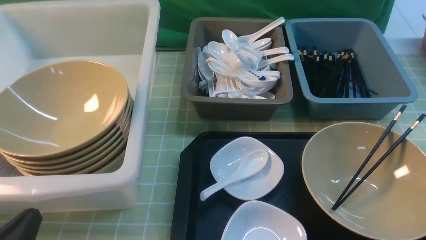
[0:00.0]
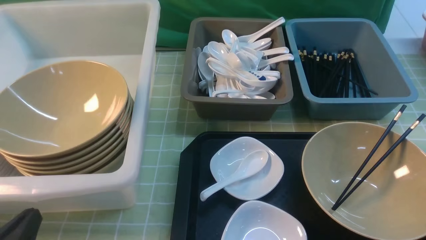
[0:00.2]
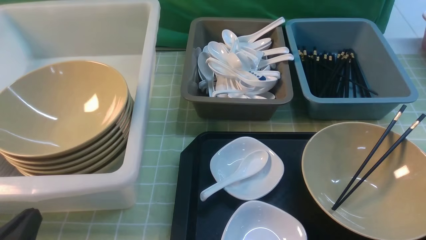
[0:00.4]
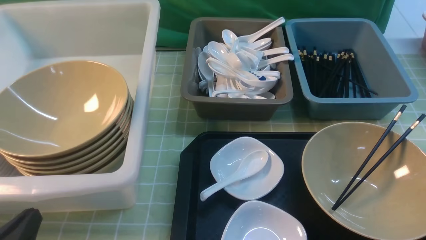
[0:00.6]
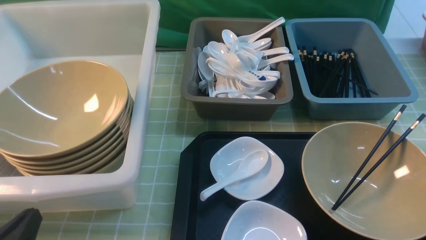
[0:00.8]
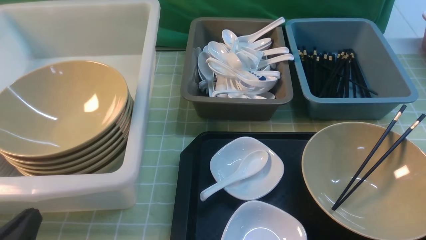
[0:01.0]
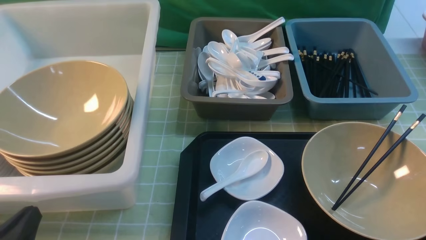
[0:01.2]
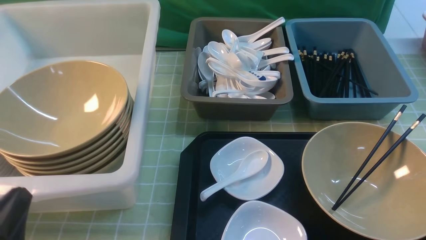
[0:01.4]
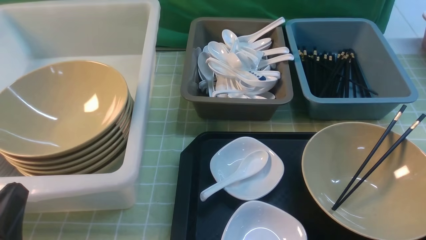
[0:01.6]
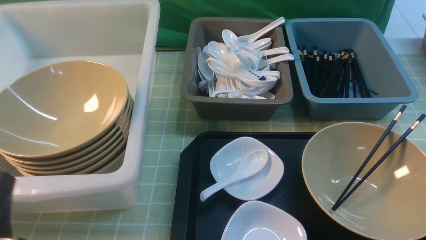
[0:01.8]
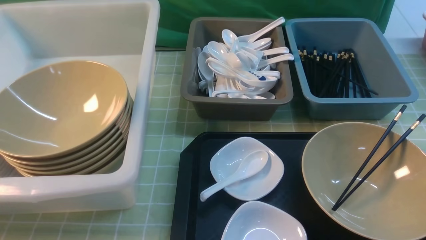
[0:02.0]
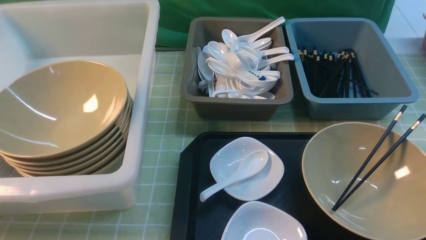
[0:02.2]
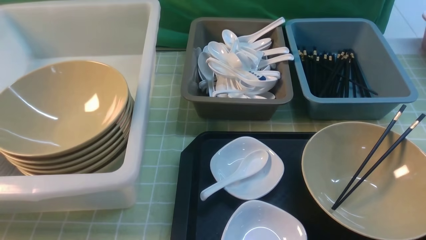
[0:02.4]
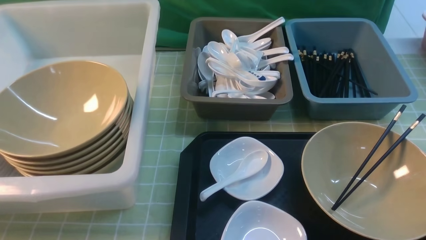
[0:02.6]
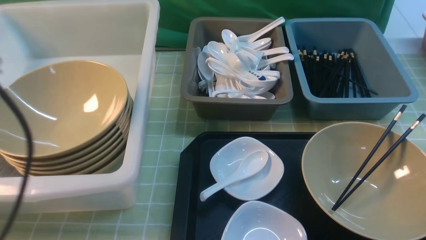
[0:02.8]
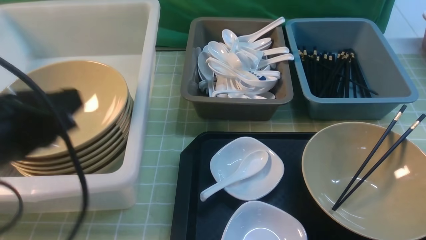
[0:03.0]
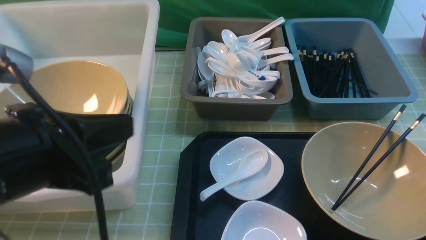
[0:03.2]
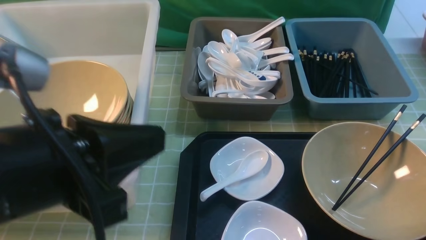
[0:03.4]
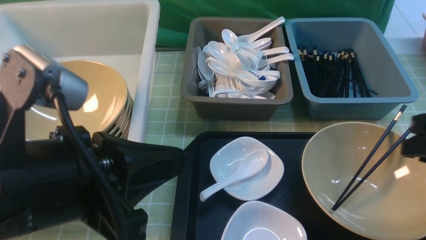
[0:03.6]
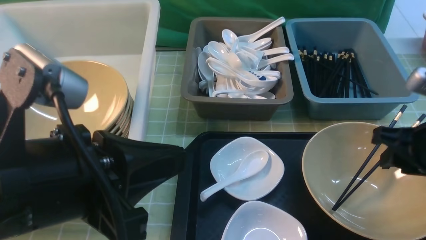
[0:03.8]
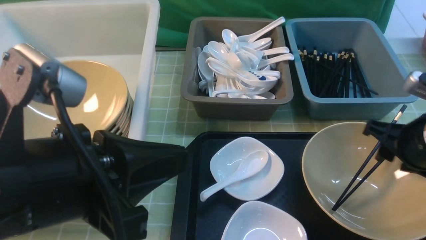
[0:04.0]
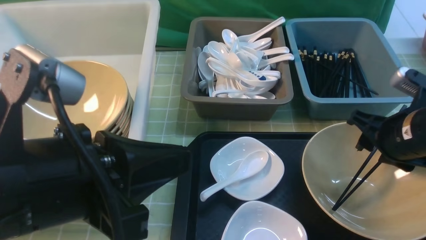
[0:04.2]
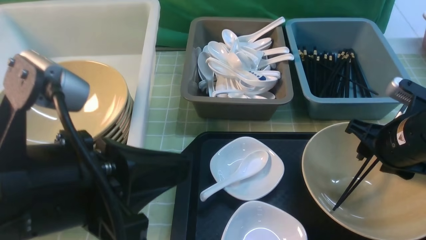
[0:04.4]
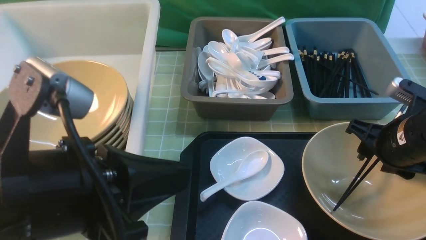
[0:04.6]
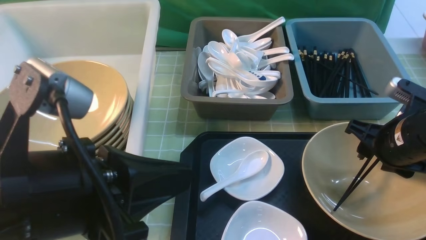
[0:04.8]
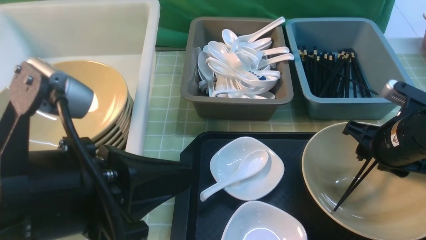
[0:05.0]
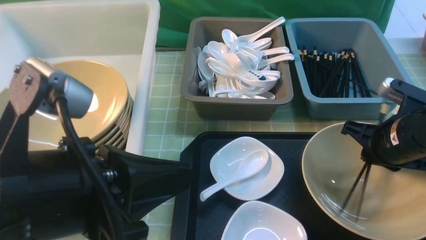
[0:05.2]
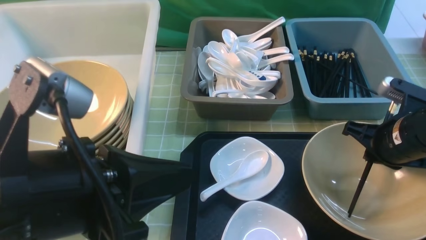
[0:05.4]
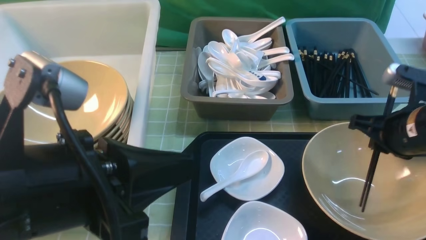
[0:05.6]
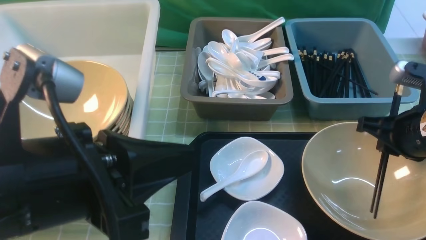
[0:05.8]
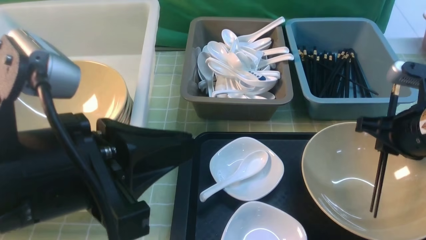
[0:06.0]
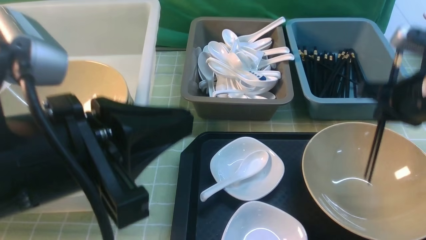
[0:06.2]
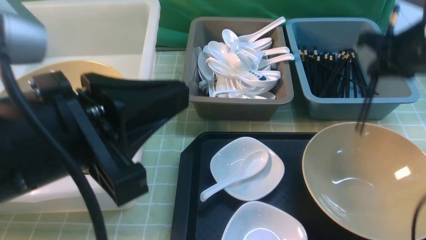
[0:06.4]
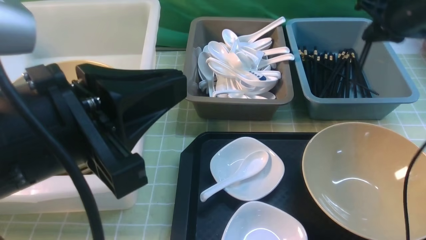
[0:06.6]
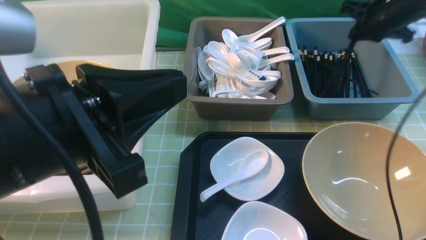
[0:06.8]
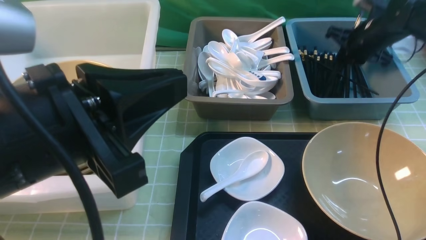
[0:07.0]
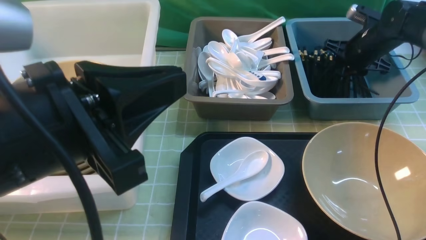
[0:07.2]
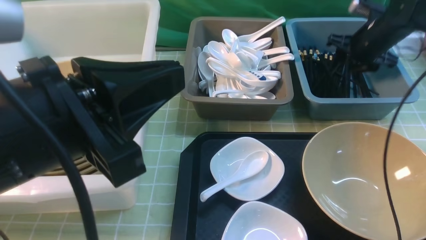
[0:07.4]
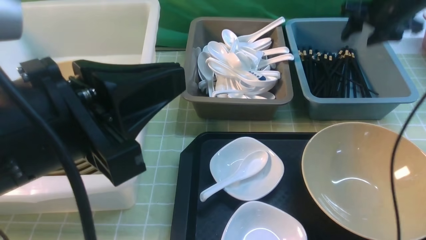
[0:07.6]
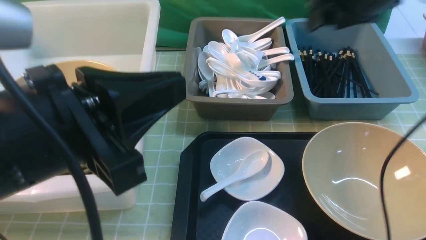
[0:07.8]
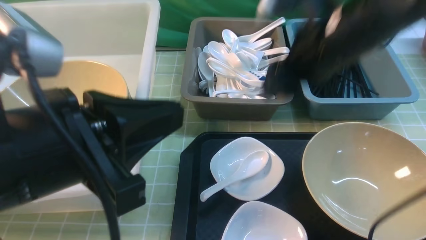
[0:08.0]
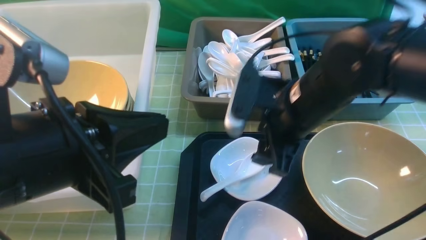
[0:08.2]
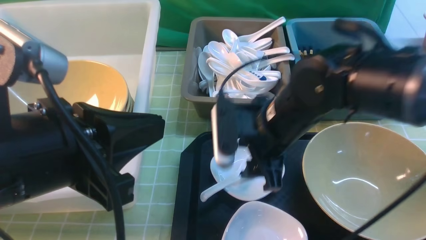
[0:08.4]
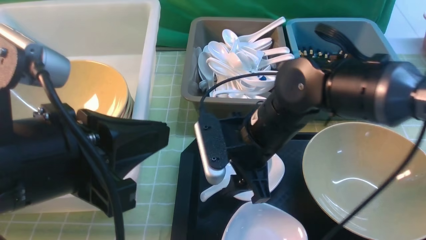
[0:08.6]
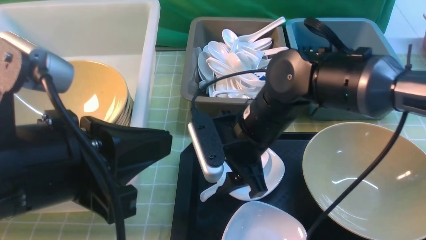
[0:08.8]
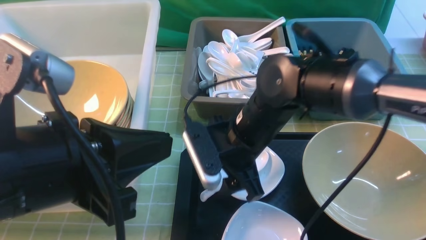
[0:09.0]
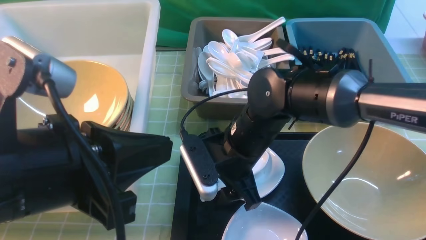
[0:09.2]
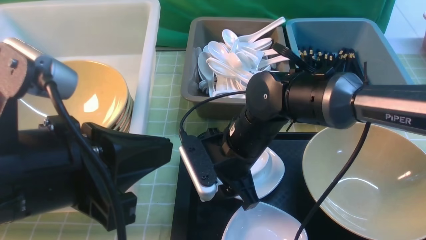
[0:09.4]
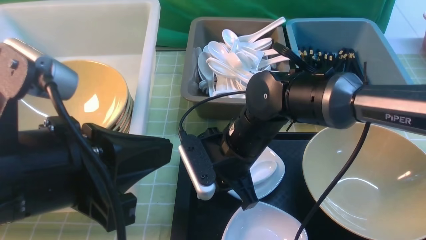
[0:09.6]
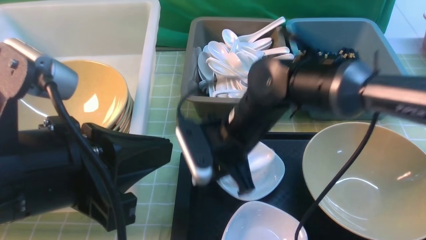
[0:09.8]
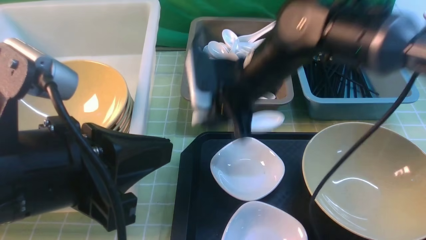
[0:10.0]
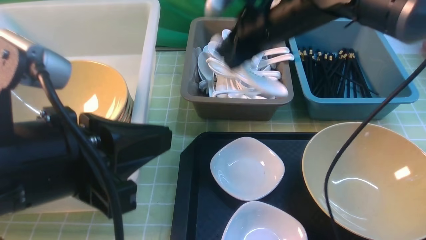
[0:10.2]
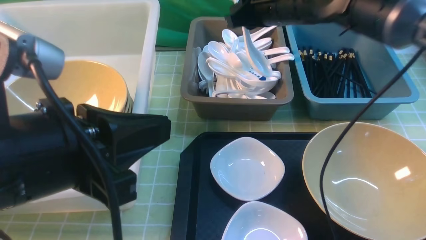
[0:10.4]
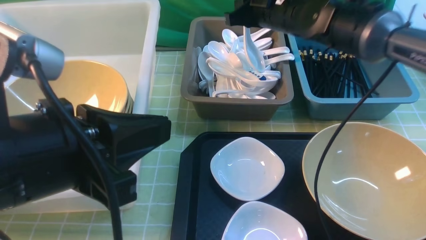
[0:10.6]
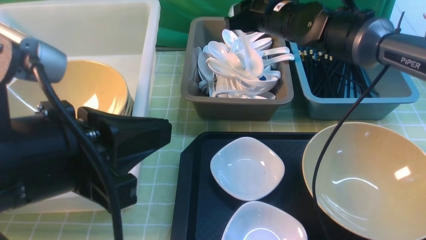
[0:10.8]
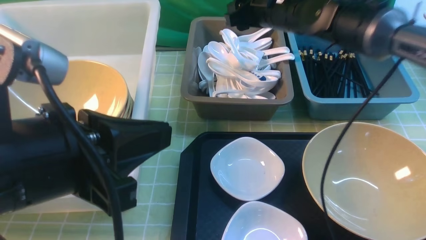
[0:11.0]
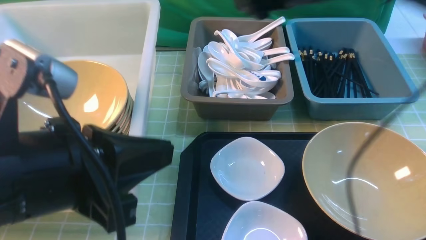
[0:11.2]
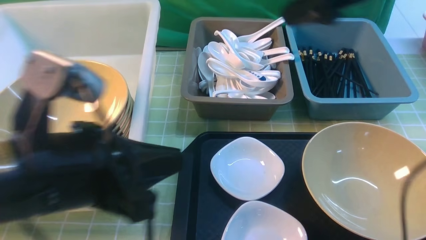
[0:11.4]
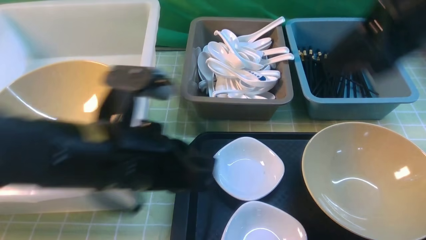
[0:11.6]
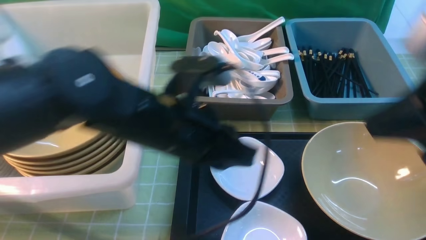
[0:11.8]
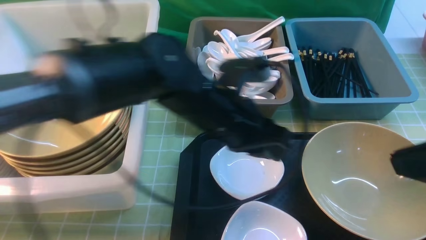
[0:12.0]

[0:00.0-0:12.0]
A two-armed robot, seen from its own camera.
Task of the whole recording: on green table put chopsticks spoon bowls plates into blue grey white boxes.
Step, 0:00.0 to 0:05.6: use the right arm to grab the chopsticks.
Step, 0:05.8 to 0:07.8: use the right arm to put the chopsticks into the small storage box on the right.
Step, 0:08.0 to 0:09.8: use the right arm to grab the soup spoon in the middle.
Step, 0:10.0 to 0:11.0: use the right arm to put the soup spoon into the small storage box in the middle.
0:00.0 to 0:01.6: The grippers move only a little.
0:01.6 to 0:03.0: The left gripper shifts approximately 15 cm upward and forward.
0:03.0 to 0:04.4: The left gripper is displaced to the right by about 5 cm, while the right gripper shifts some 20 cm forward, downward and to the left.
0:04.4 to 0:06.0: The right gripper closes its fingers.
0:06.0 to 0:07.6: The right gripper heads forward, covering about 20 cm, and opens.
0:07.6 to 0:09.0: The right gripper is displaced to the left, backward and downward by approximately 30 cm.
0:09.0 to 0:10.4: The right gripper is displaced forward, upward and to the right by roughly 20 cm, and closes its fingers.
0:10.4 to 0:12.0: The right gripper shifts some 35 cm backward and to the right, and opens and closes again. Meanwhile the left gripper is displaced to the right, forward and downward by approximately 25 cm, and opens its fingers.

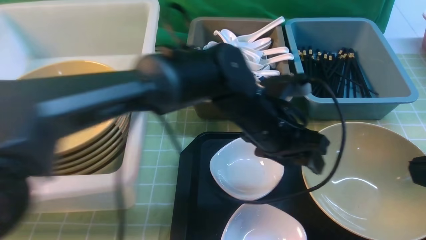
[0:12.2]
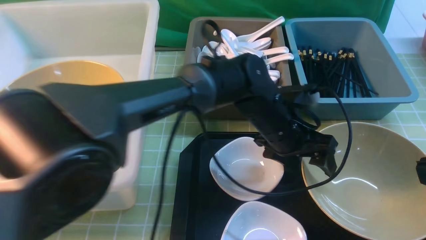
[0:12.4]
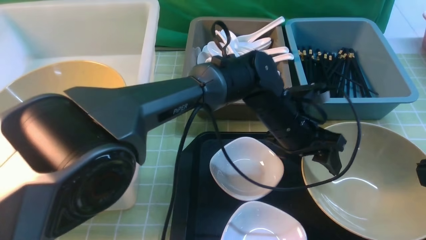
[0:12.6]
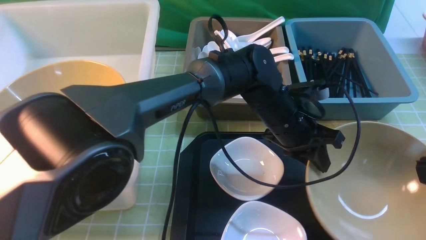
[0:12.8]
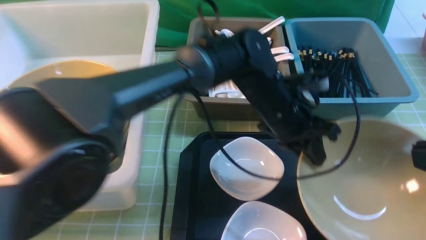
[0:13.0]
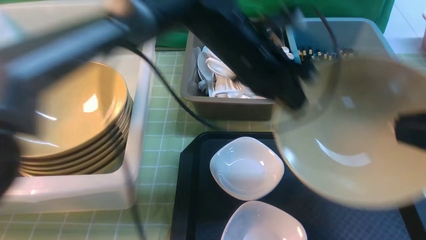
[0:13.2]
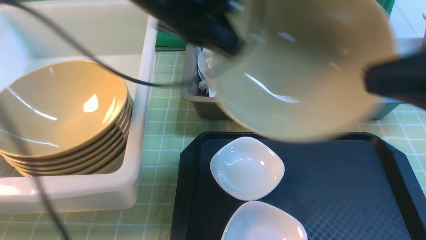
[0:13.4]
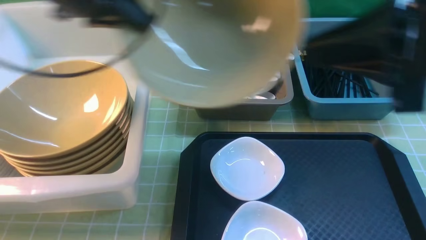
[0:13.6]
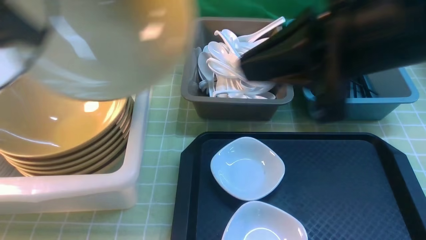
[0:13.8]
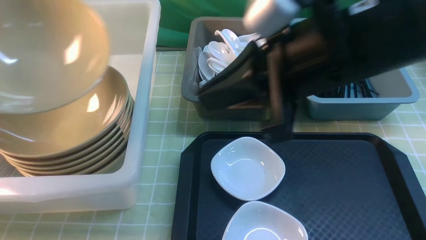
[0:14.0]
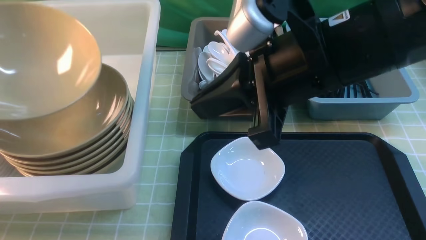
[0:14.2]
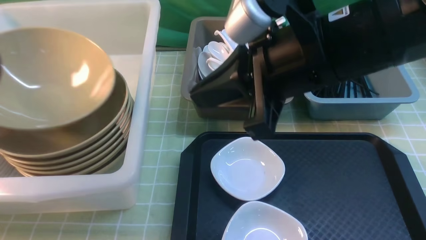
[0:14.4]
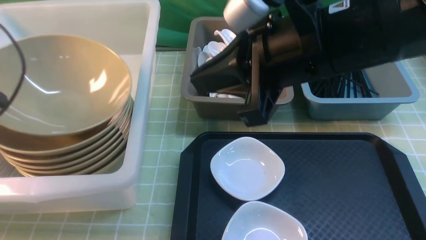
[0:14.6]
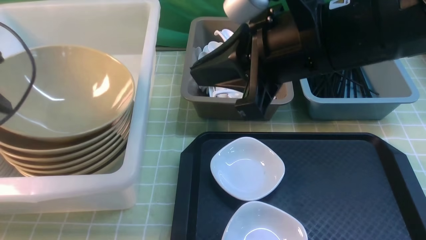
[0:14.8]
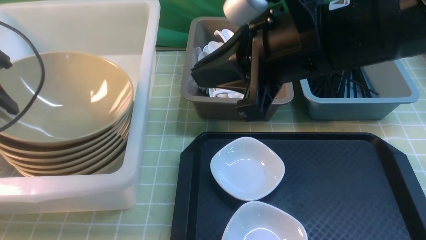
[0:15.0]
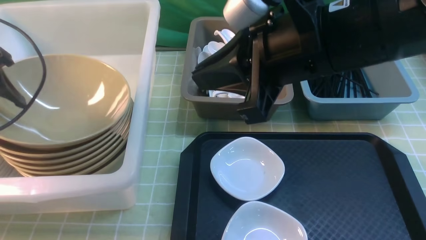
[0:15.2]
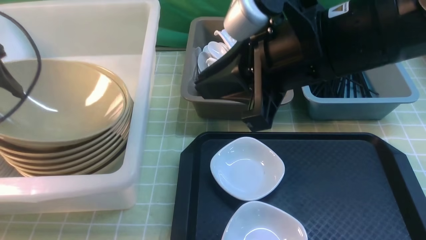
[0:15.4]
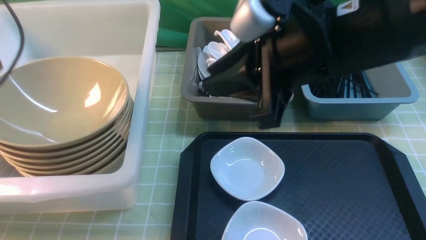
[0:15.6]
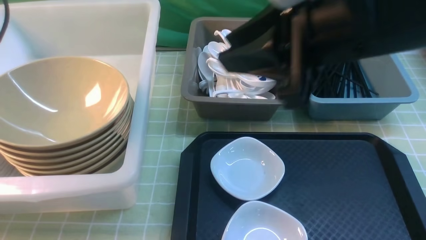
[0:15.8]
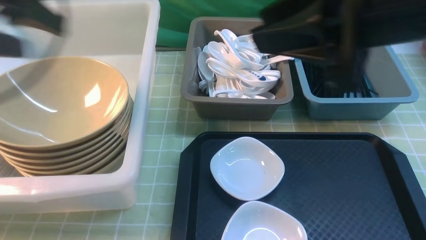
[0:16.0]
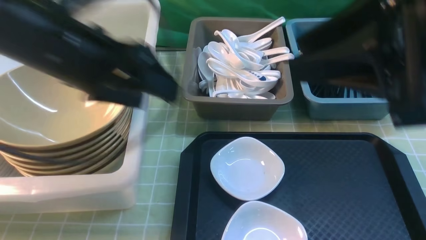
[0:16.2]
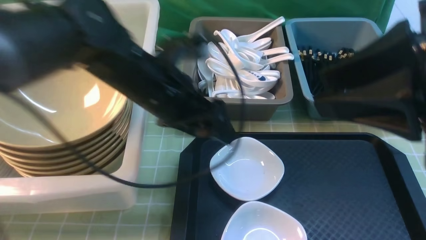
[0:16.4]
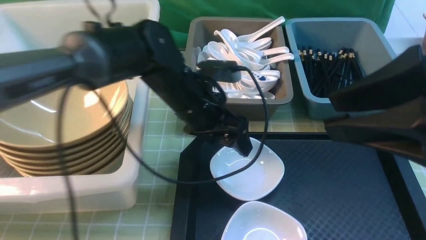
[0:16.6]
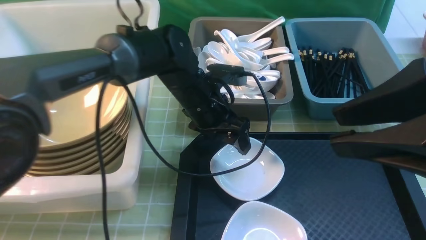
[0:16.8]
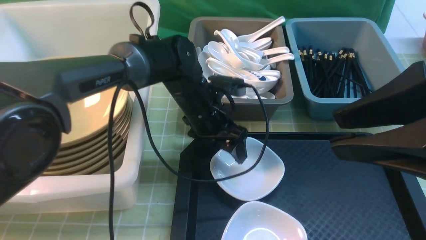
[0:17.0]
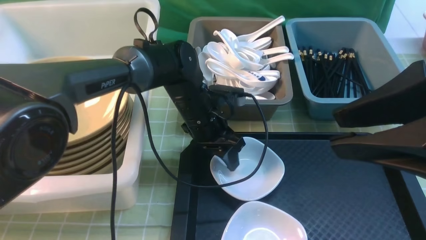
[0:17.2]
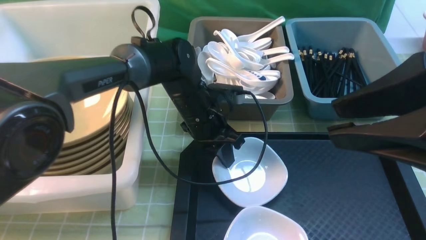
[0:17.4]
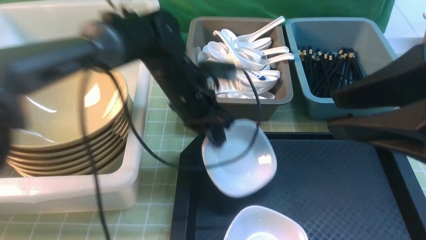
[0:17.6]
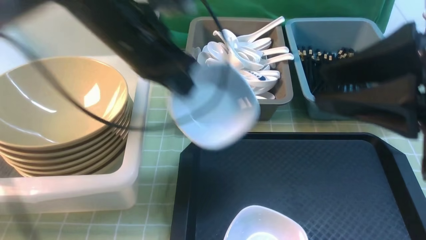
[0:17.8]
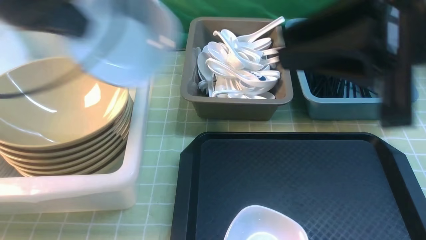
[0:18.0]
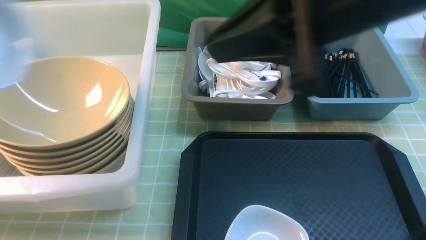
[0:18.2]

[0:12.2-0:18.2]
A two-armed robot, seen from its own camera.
Task of the whole recording: on green table put chopsticks spoon bowls plates into blue grey white boxes.
Step, 0:13.2 to 0:16.0: use the left arm to put the noodle bowl into the large storage box on the left.
Step, 0:16.2 to 0:17.6: use the left arm to grab the plate.
0:12.2 to 0:13.8: The left gripper is displaced to the left and upward by roughly 40 cm, and closes its fingers. The right gripper heads forward and to the left, covering roughly 15 cm.
0:13.8 to 0:15.2: The right gripper changes place by roughly 5 cm. The left gripper travels downward by about 5 cm, and opens up.
0:15.2 to 0:16.6: The right gripper shifts roughly 15 cm backward and to the right. The left gripper heads to the right, covering approximately 30 cm.
0:16.6 to 0:18.2: The left gripper goes approximately 35 cm to the left, upward and backward, and closes its fingers. The right gripper is displaced to the left and forward by roughly 10 cm, and closes its fingers.
